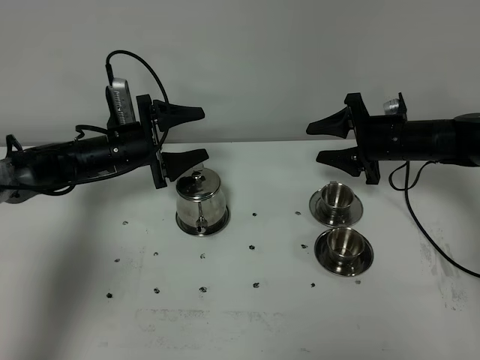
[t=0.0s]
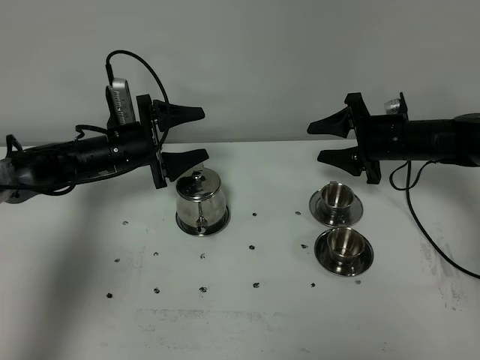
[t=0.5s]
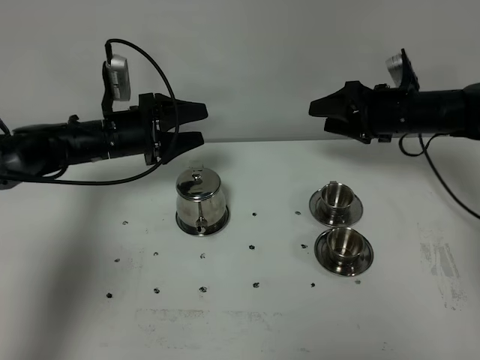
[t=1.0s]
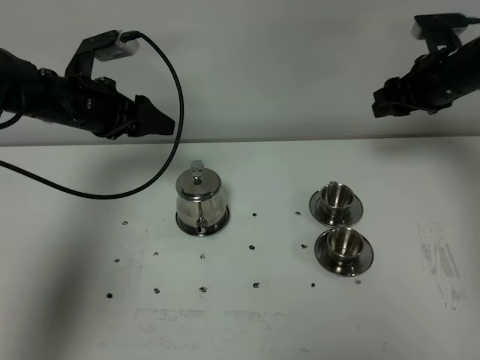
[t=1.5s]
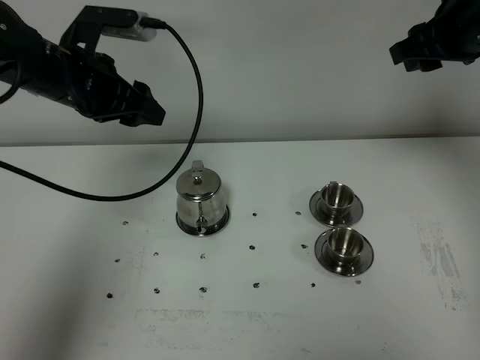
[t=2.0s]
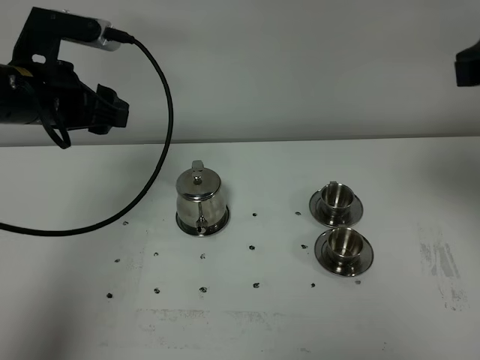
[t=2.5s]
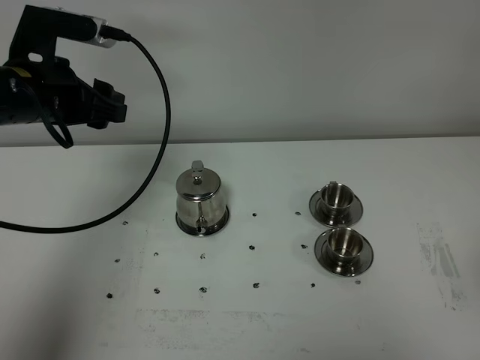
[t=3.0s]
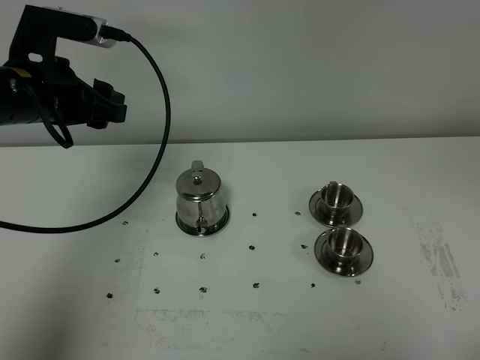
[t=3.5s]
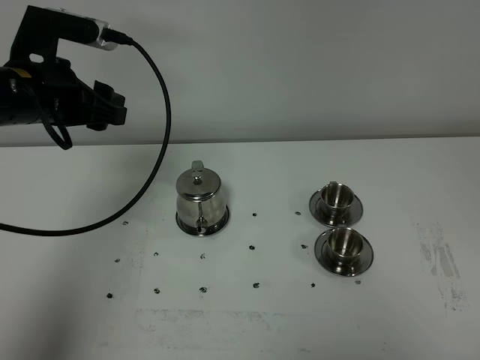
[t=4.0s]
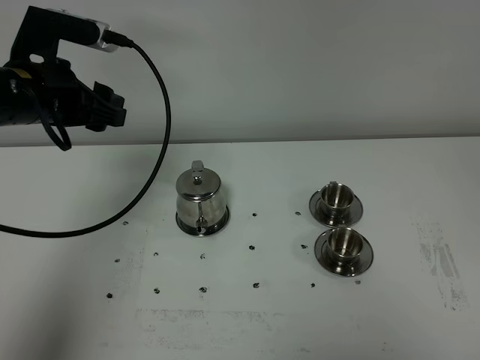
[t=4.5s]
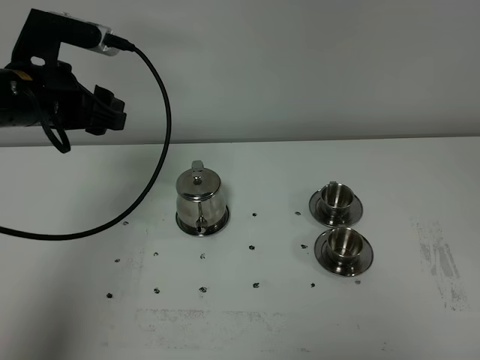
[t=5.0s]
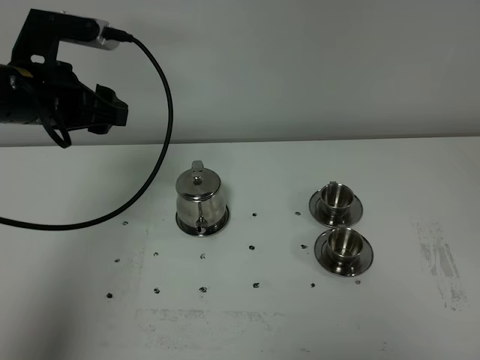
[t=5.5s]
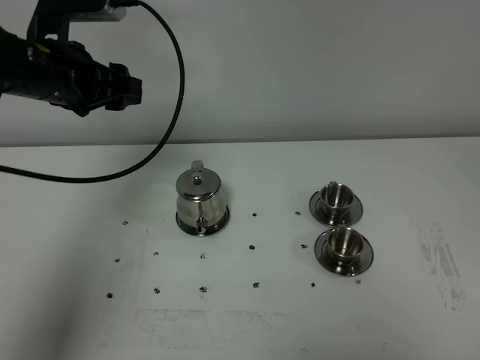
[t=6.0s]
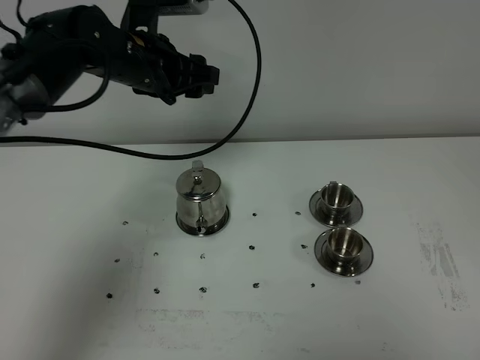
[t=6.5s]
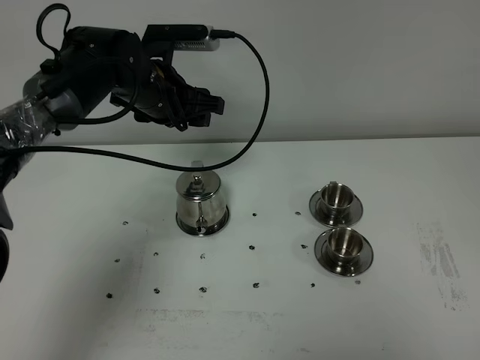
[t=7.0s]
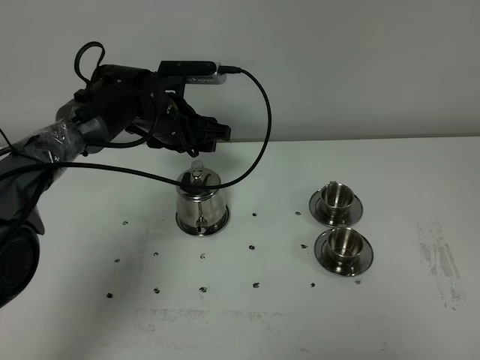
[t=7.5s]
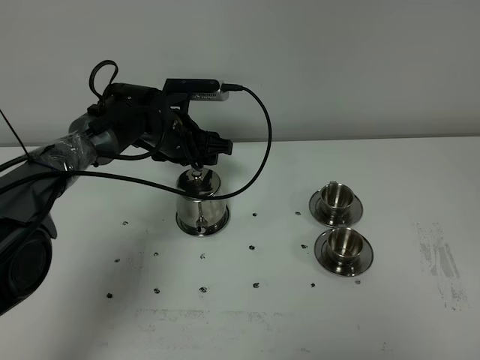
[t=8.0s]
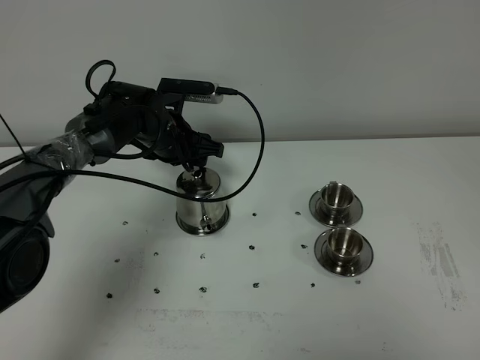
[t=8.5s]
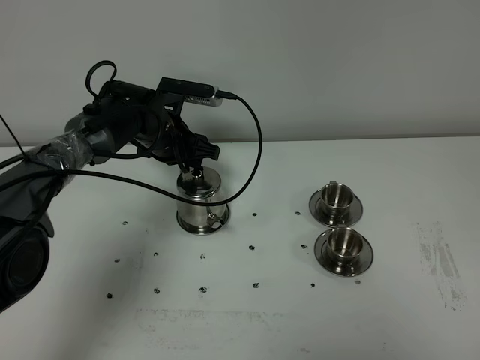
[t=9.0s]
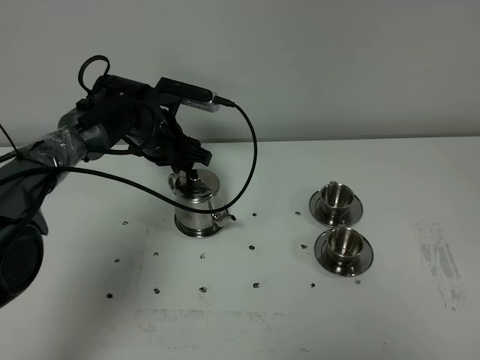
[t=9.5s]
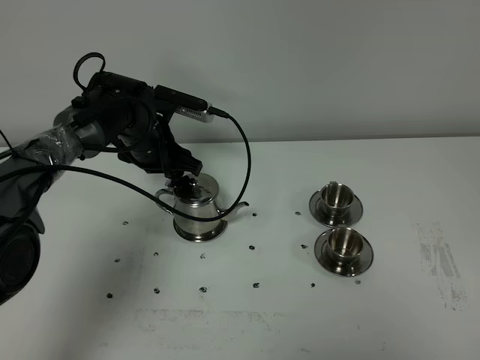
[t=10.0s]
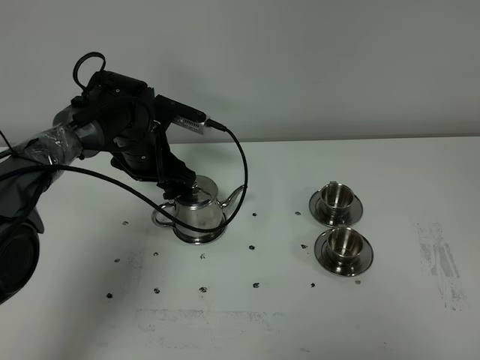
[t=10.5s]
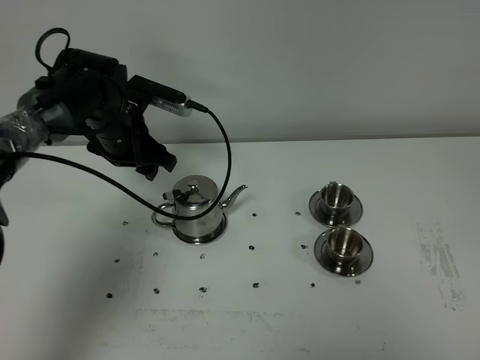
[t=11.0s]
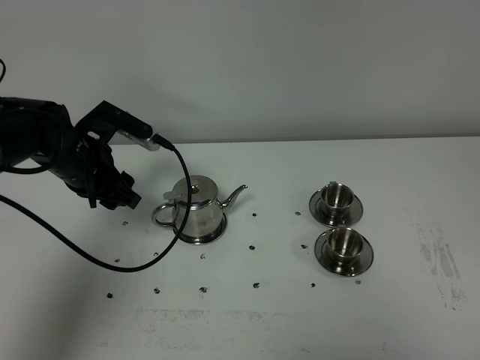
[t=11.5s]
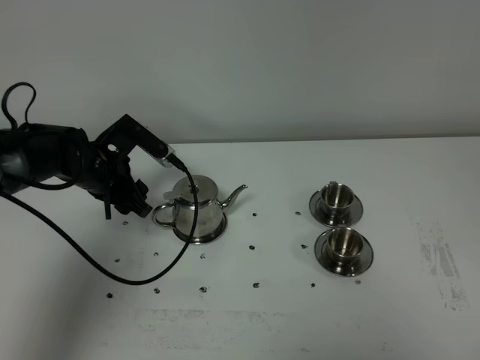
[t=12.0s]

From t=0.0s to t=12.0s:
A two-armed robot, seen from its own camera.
Task of the whole recording: grasp the stainless steel teapot and pour the tea into the two stainless steel teacups one by one, put the stainless steel teapot back in its original place.
From t=0.0s to t=2.0s: Both grippers travel together upward, some 20 cm.
From t=2.0s to t=4.0s: The right gripper travels backward by some 40 cm, and closes.
From t=4.0s to t=6.0s: The grippers make only small movements.
From t=6.0s to t=8.0s: The left gripper goes about 20 cm downward, to the right and forward.
From t=10.0s to t=12.0s: The left gripper moves to the left and backward, approximately 10 cm.

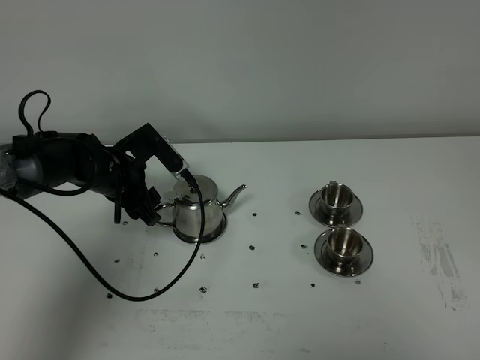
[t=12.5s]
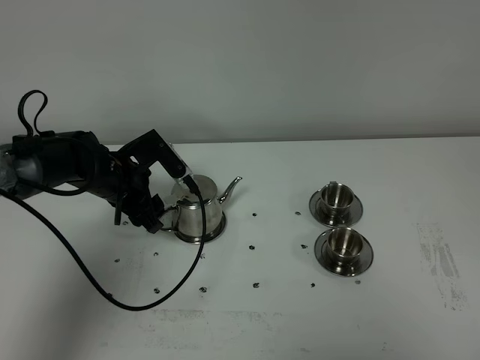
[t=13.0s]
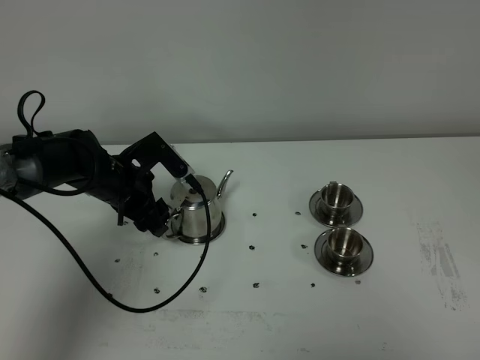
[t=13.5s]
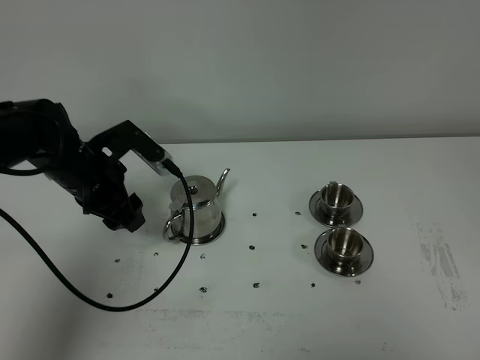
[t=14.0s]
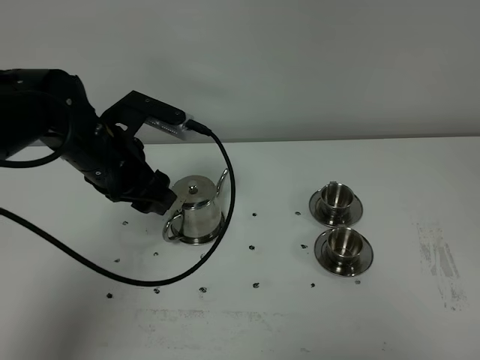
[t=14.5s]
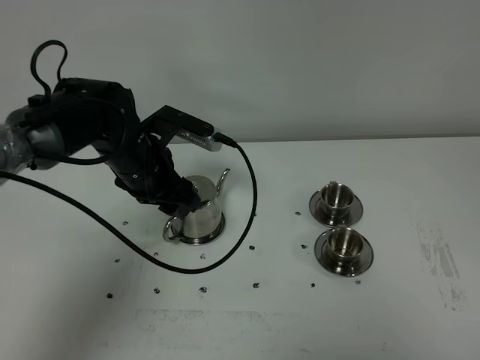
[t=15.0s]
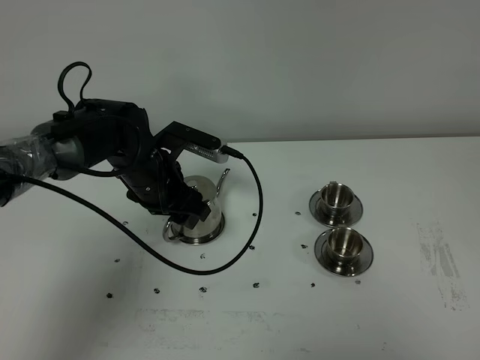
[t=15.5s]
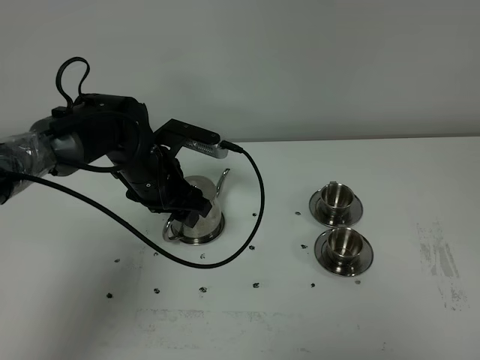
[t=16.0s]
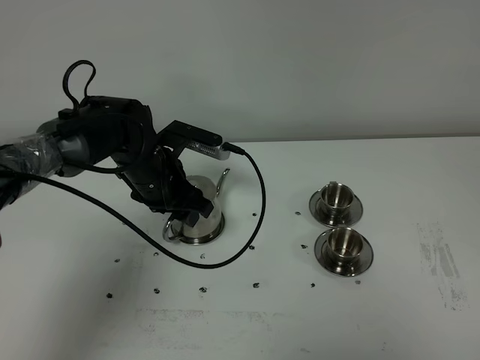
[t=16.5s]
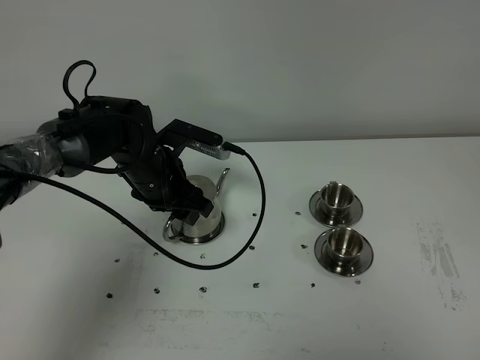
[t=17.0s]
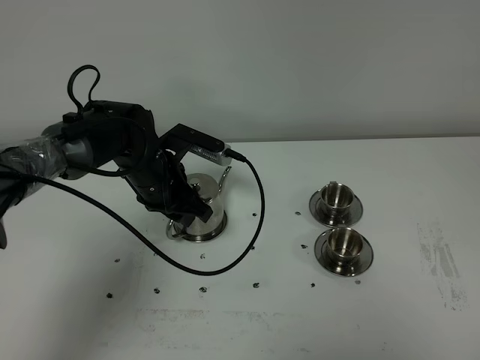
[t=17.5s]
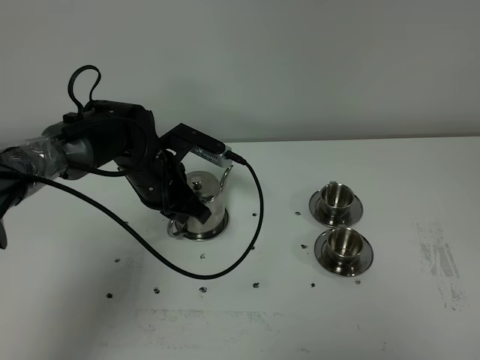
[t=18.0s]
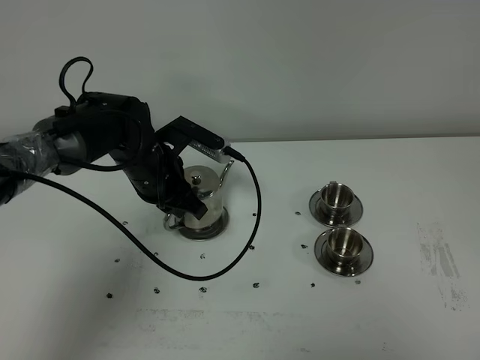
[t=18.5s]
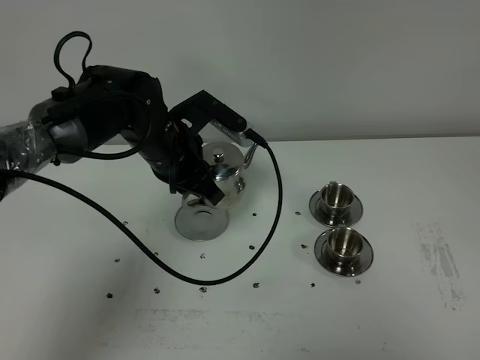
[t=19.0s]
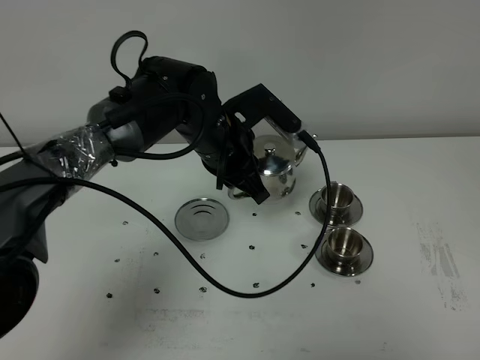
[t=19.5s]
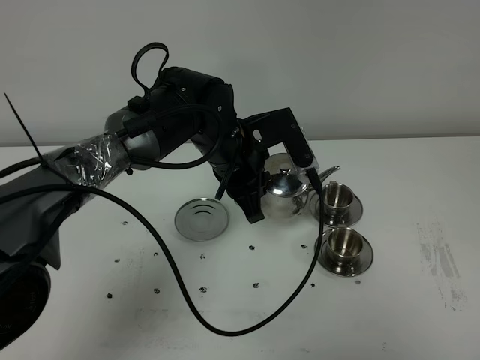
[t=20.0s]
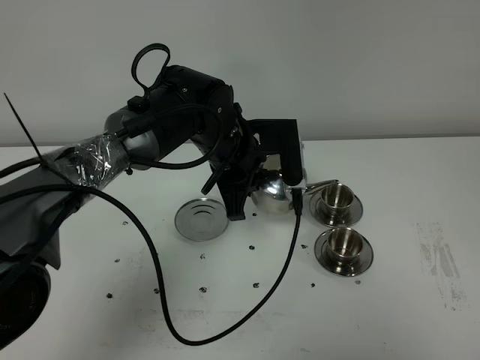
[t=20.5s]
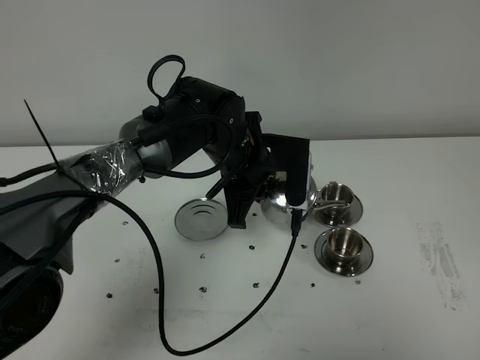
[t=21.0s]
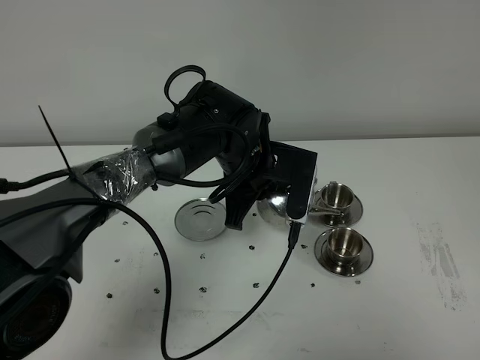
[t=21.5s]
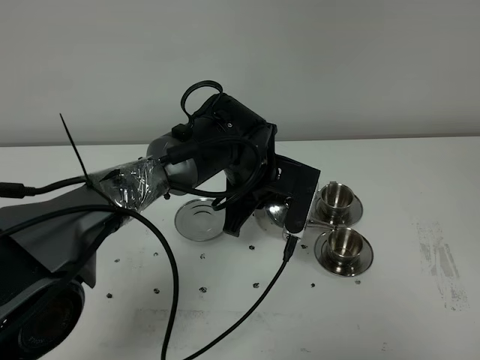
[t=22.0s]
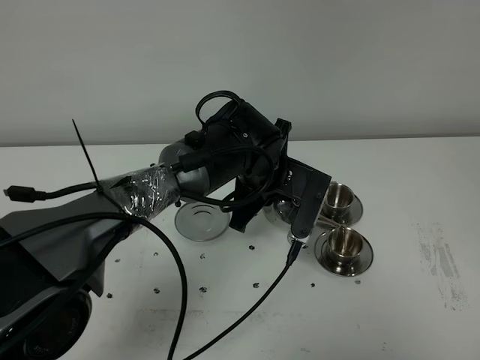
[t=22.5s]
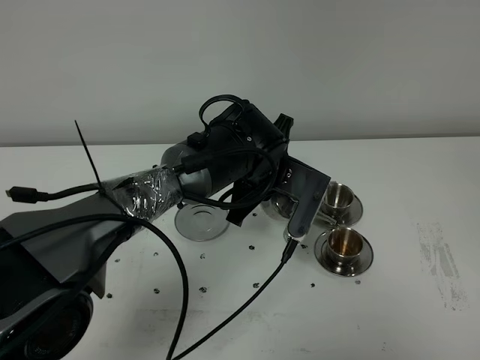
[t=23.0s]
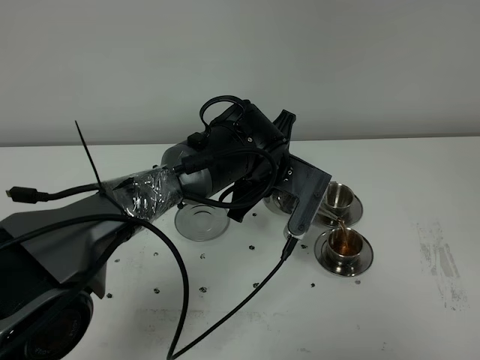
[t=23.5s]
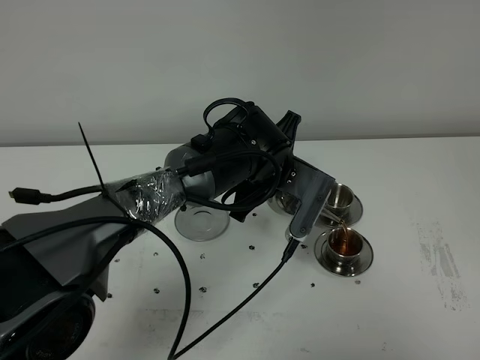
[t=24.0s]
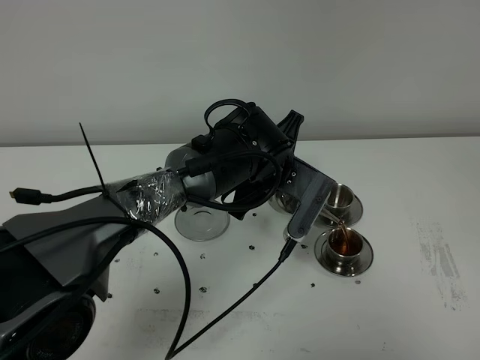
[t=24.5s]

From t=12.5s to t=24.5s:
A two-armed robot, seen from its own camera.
Task of the whole recording: grasp the stainless steel teapot and pour the tea into the two stainless steel teacups one by one, put the stainless steel teapot back in its original place.
Step, from t=12.5s to t=18.5s: Pick up the teapot with the left gripper.
From t=12.5s to t=14.5s: The left gripper goes some 10 cm upward and backward.
From t=14.5s to t=16.5s: The left gripper moves downward and forward, roughly 10 cm.
From t=16.5s to t=18.5s: The left gripper closes its fingers.
From t=18.5s to t=20.5s: The left gripper moves to the right, some 10 cm.
From t=20.5s to t=22.5s: The left gripper moves approximately 5 cm.
From t=22.5s to t=24.5s: The grippers make only small movements.

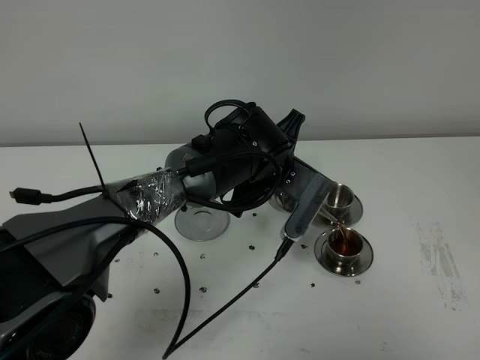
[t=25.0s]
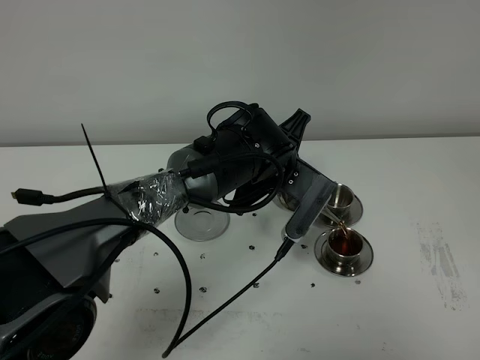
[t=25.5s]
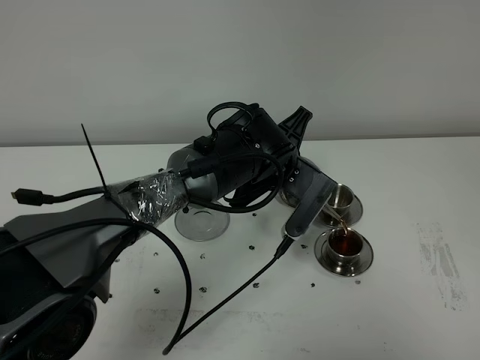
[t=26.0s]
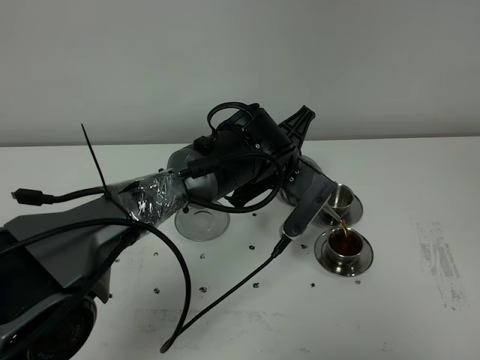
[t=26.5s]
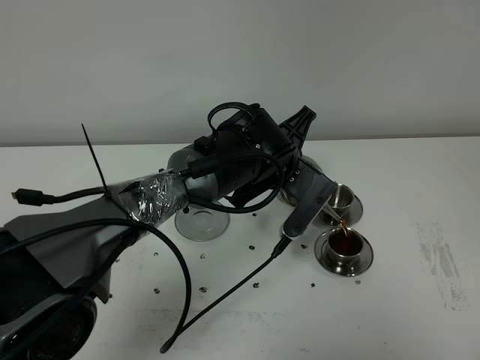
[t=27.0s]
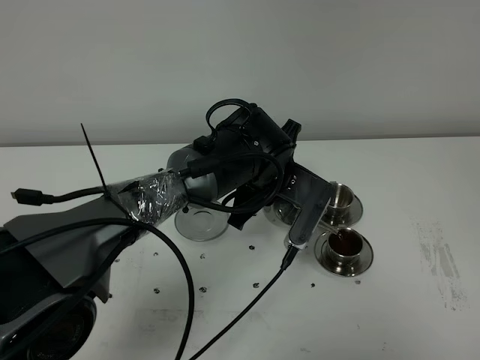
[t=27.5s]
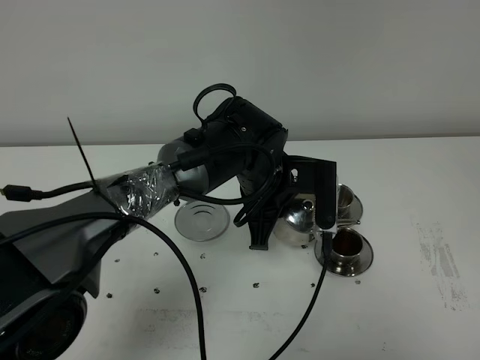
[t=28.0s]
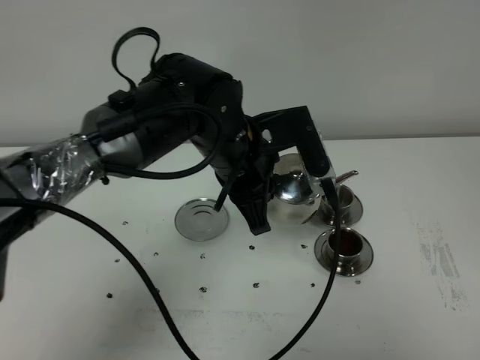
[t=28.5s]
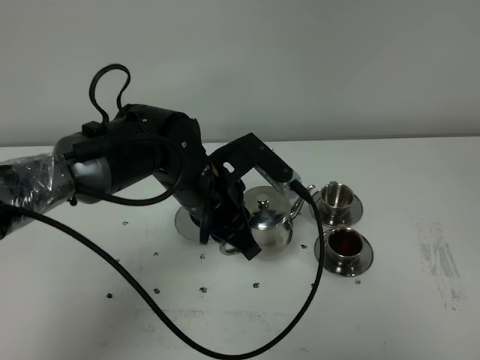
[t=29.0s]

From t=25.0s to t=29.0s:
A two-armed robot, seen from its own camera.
Task of the whole recording: grasp the stainless steel teapot and pour the tea into the two stainless steel teacups one by one, put the stainless steel teapot back in its original place.
From t=25.0s to t=27.0s: The grippers make only small movements.
From t=27.0s to t=29.0s: The left gripper shifts approximately 10 cm to the left and backward.
